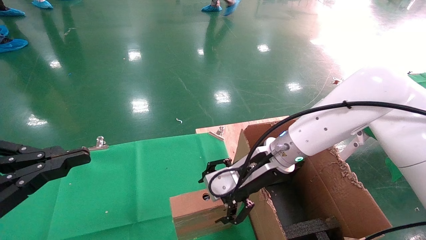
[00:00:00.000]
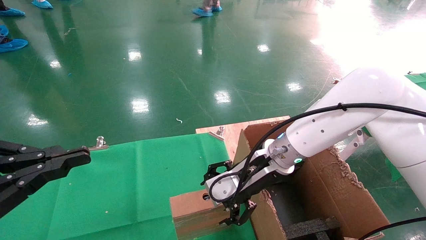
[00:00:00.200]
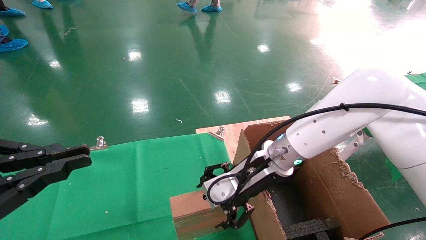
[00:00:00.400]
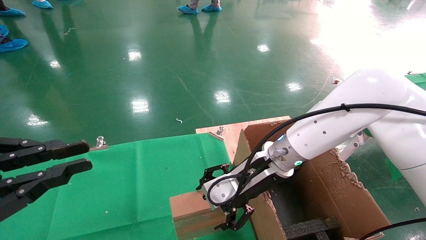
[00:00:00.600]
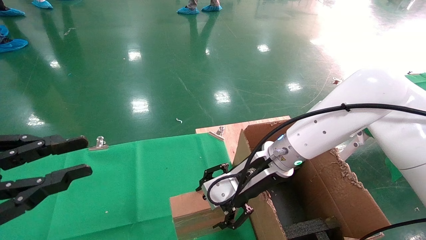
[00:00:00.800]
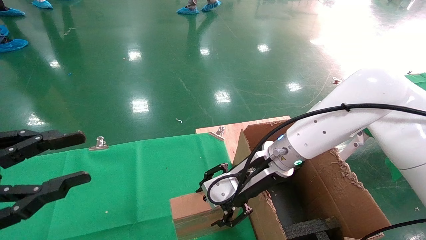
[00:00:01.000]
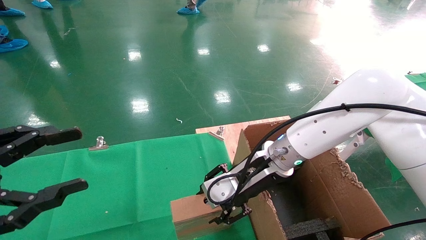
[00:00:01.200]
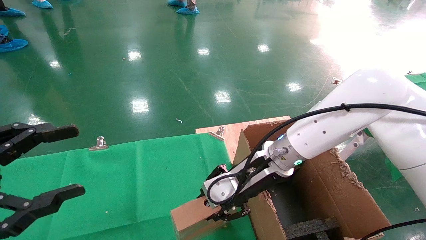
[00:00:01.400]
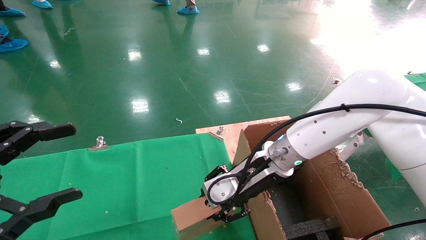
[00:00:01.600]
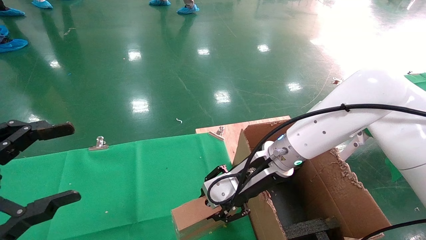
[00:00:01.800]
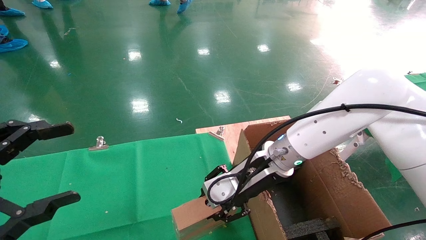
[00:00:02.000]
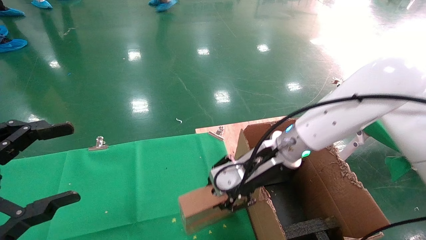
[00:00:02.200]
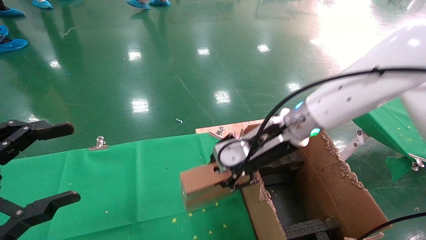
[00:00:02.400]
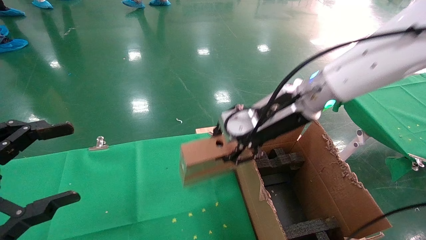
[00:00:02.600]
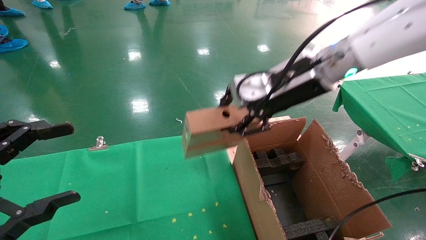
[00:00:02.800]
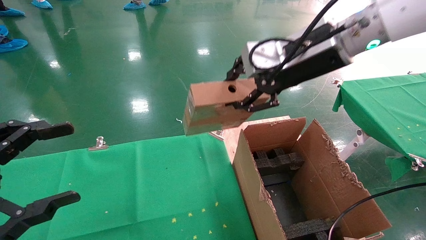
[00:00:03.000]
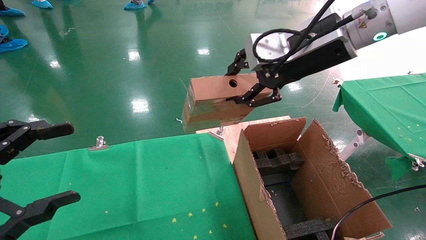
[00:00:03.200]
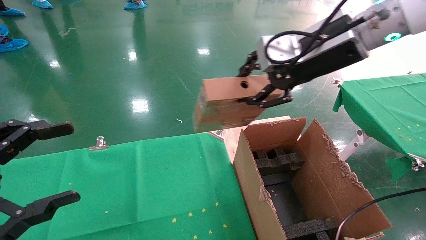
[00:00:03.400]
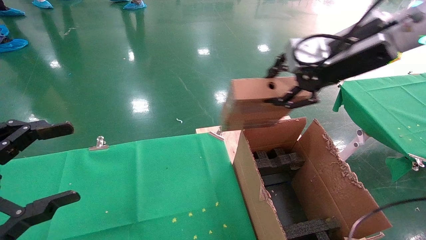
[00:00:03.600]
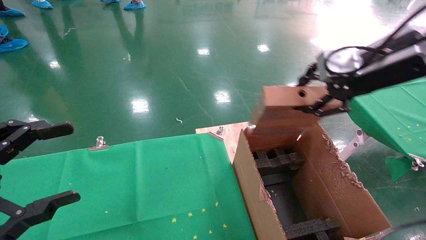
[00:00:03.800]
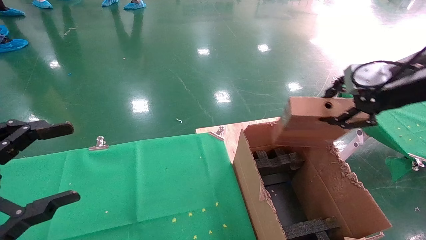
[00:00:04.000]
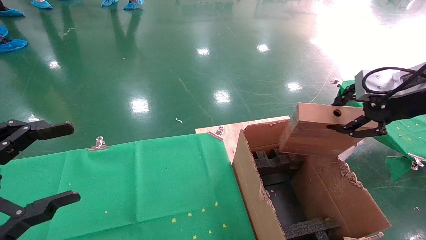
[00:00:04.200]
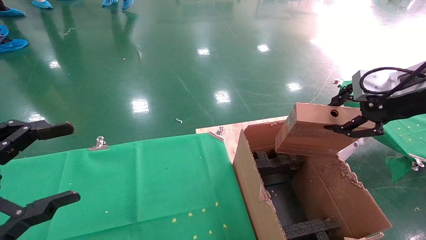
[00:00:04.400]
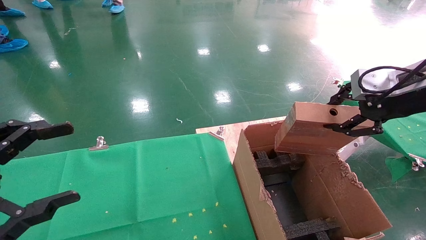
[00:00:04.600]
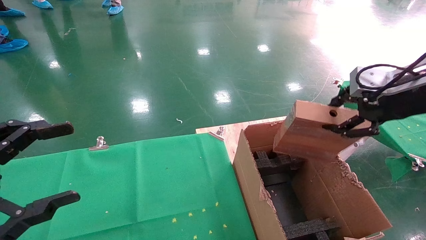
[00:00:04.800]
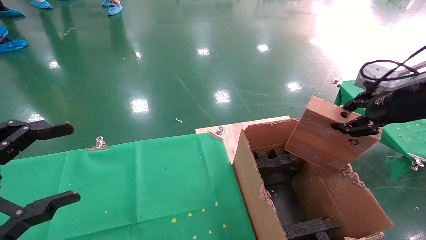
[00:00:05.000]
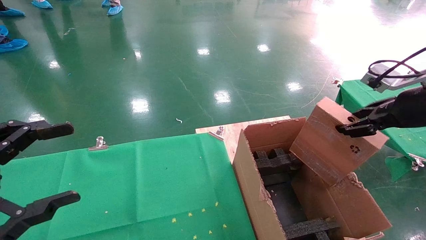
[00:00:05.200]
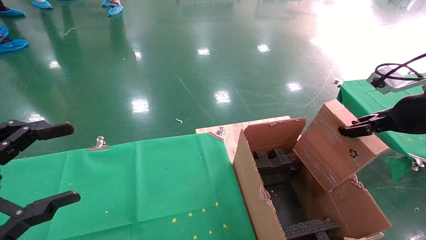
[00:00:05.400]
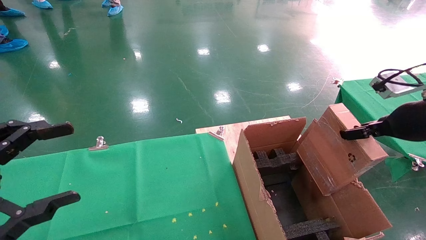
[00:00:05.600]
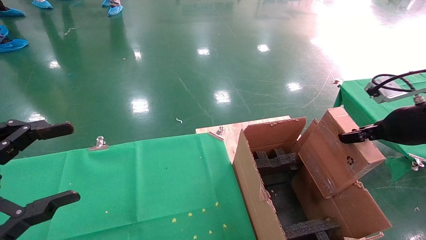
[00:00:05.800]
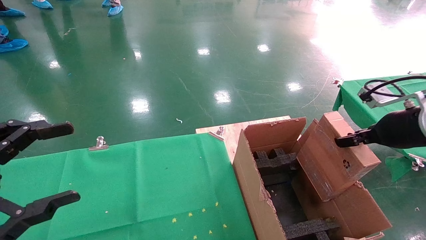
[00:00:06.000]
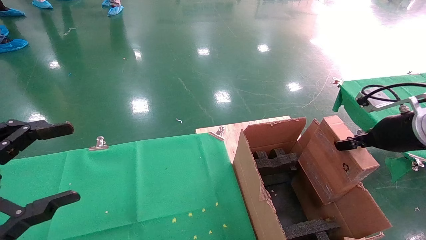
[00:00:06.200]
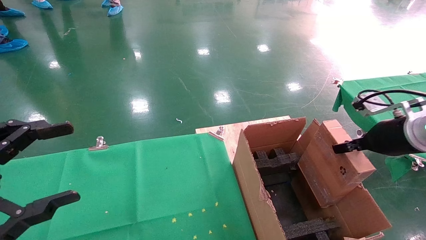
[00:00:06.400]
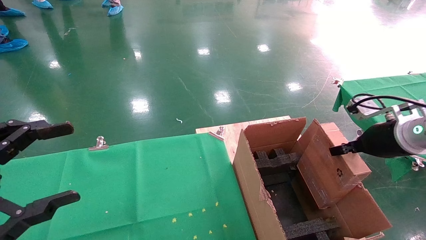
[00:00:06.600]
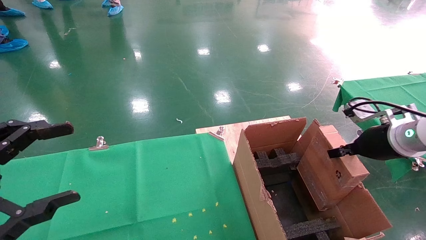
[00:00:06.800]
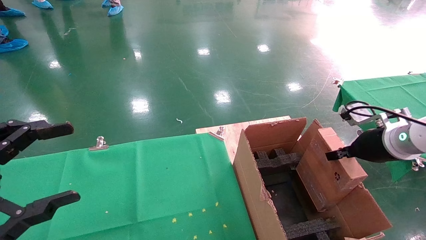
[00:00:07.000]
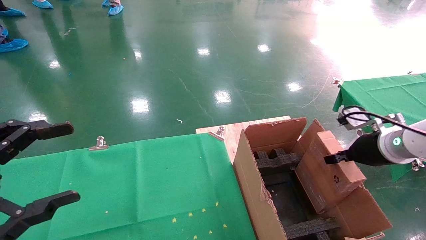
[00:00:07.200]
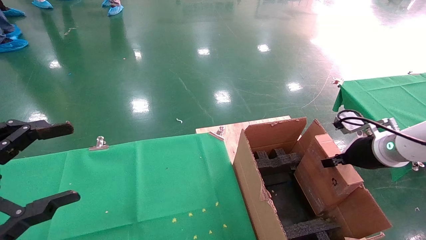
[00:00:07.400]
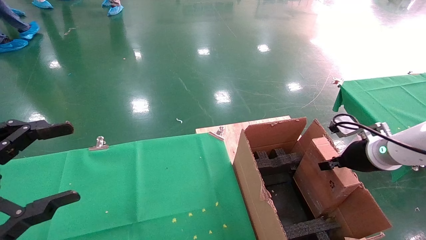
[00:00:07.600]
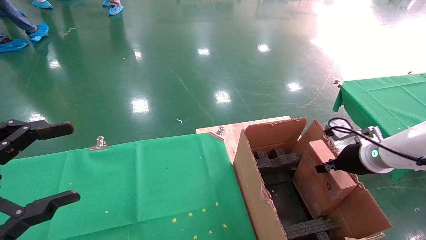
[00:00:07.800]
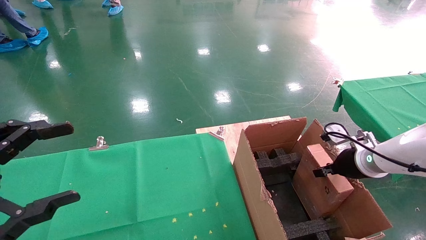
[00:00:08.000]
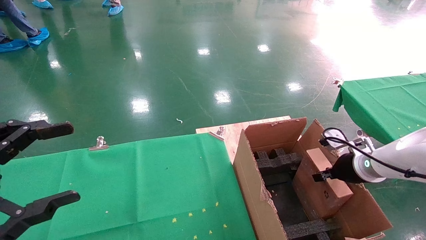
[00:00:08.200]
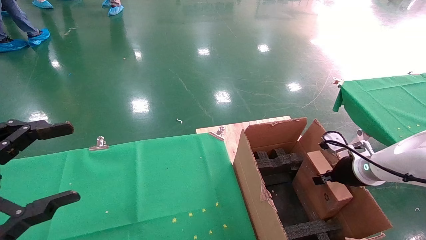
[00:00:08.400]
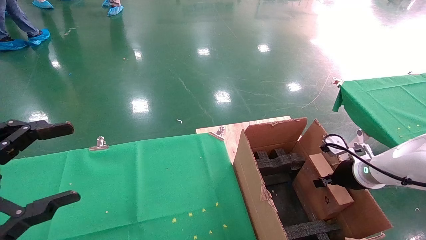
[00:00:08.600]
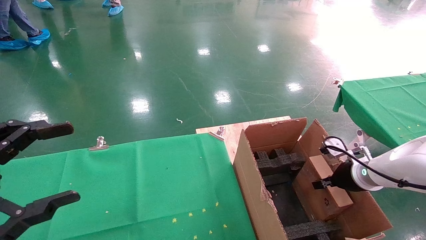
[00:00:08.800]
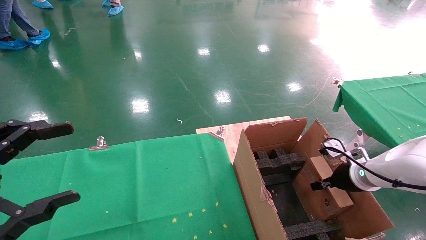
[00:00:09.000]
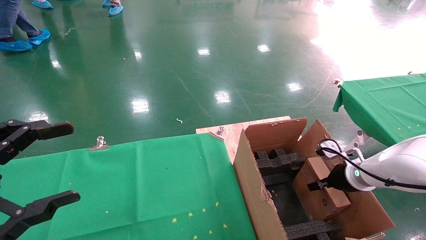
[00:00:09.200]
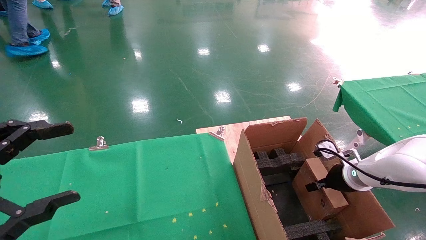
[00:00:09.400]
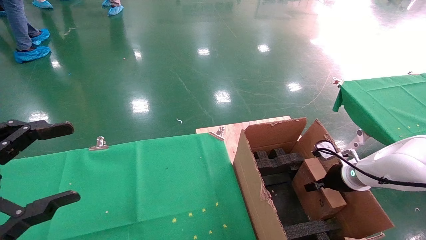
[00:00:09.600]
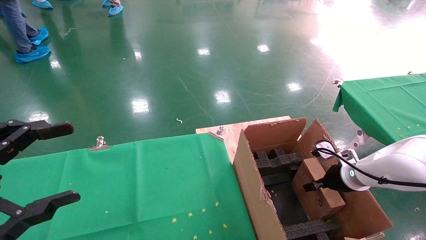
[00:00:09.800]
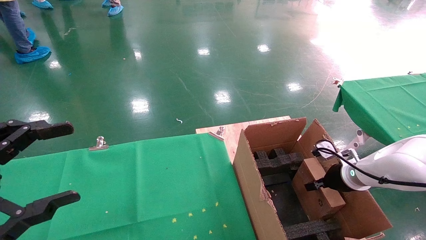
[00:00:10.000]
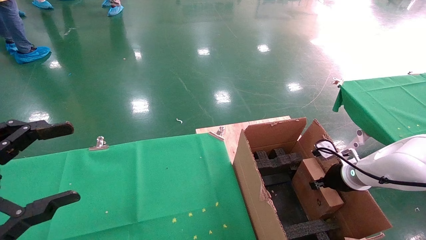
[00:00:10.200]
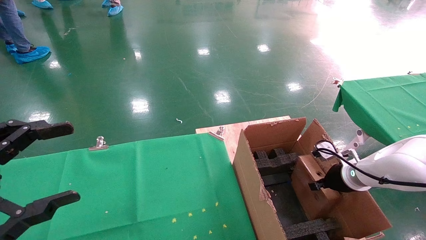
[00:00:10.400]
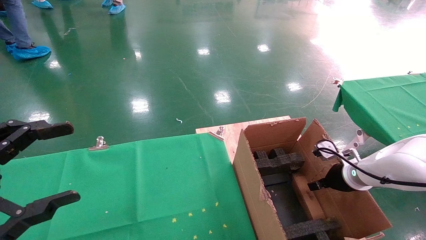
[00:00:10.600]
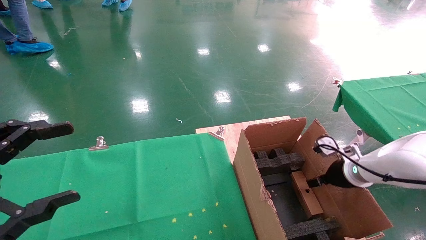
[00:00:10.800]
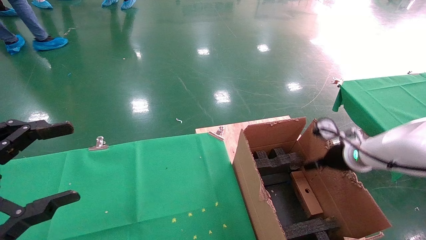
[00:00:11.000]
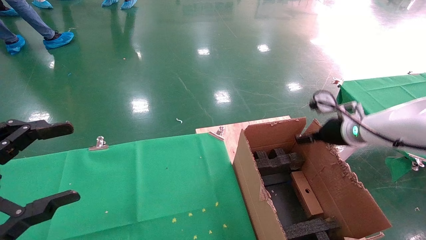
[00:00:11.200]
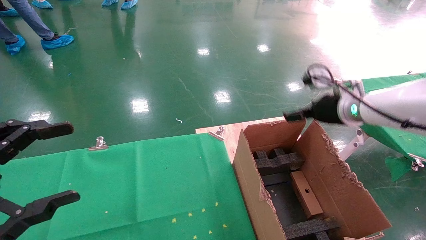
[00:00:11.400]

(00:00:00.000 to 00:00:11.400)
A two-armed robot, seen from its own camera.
Task of the whole recording: using a robotic arm to pick up a cardboard box and palace it the carton.
Step, 00:00:00.000 - 00:00:02.200: Pick up the mouse and the power cord paper box.
Step, 00:00:02.400 - 00:00:10.600: Place the mouse and the power cord paper box into the container.
00:00:00.000 - 00:00:01.400: The left gripper opens up. The right gripper closes.
00:00:01.400 - 00:00:02.800: The right gripper moves upward, approximately 15 cm.
00:00:02.800 - 00:00:04.200: The right gripper is displaced to the right and backward by roughly 20 cm.
00:00:04.200 - 00:00:05.600: The right gripper travels downward by some 5 cm.
00:00:05.600 - 00:00:07.200: The right gripper heads downward and forward, covering approximately 10 cm.
00:00:07.200 - 00:00:08.600: The right gripper goes about 10 cm downward.
00:00:08.600 - 00:00:10.000: The grippers make only small movements.
00:00:10.000 - 00:00:11.400: The right gripper goes about 15 cm upward, and opens up.

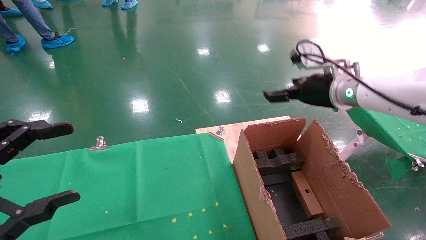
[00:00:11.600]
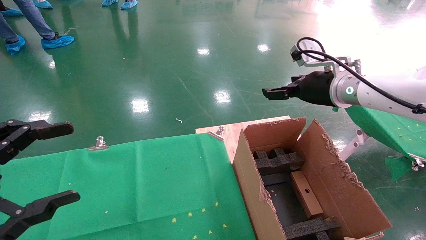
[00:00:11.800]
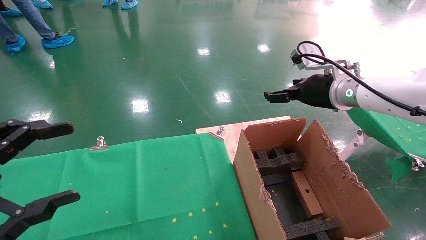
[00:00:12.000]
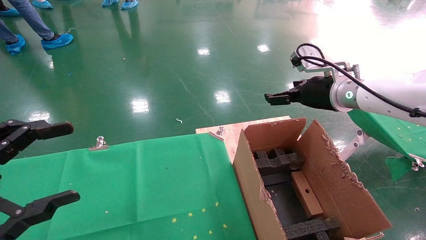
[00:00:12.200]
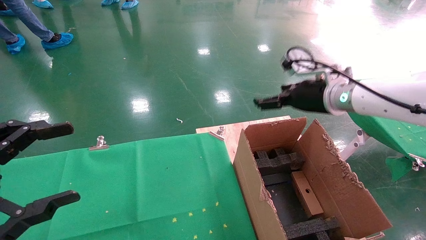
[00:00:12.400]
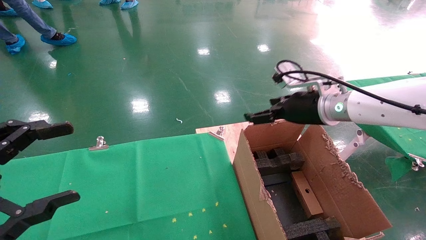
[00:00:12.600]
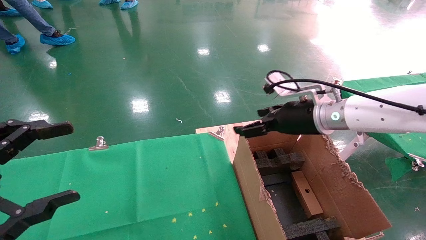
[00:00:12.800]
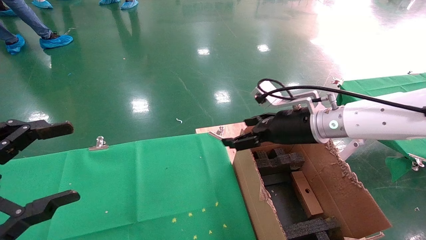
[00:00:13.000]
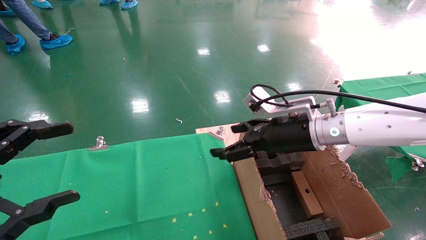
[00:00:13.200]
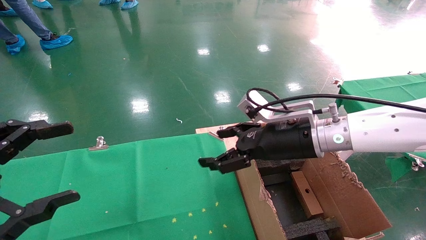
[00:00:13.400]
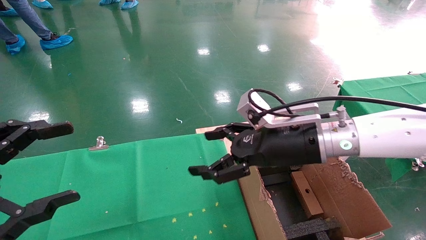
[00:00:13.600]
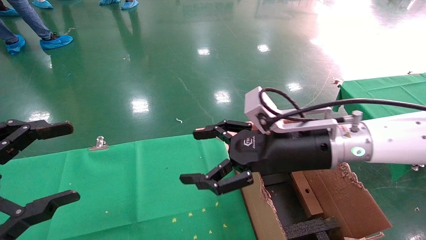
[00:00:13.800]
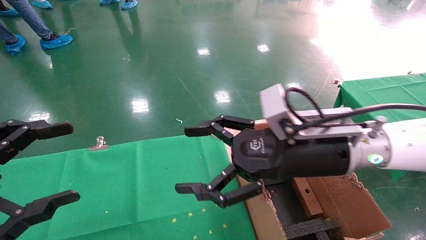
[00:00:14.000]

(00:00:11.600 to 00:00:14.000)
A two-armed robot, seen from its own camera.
Task of the whole recording: using a robotic arm to pick up a cardboard box and palace it the carton.
00:00:11.600 - 00:00:12.800: The right gripper goes about 5 cm to the left.
00:00:12.800 - 00:00:14.000: The right gripper shifts about 10 cm backward and to the left.
